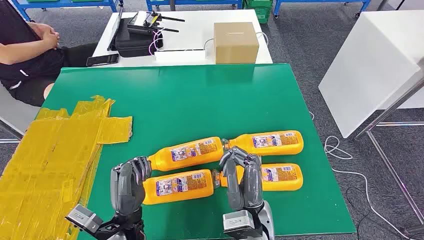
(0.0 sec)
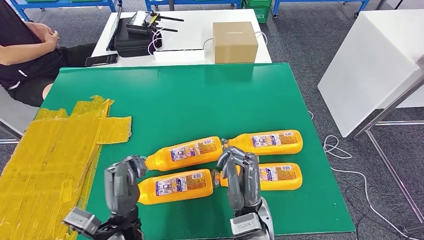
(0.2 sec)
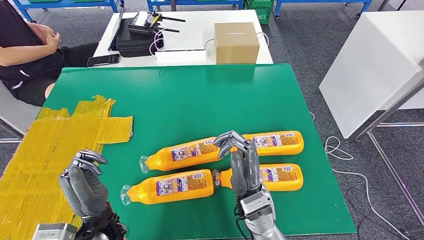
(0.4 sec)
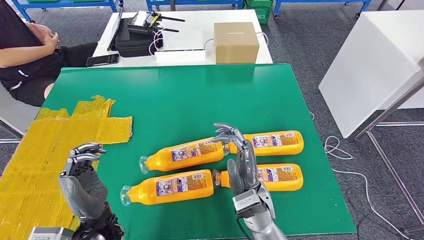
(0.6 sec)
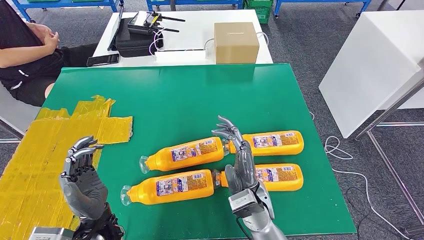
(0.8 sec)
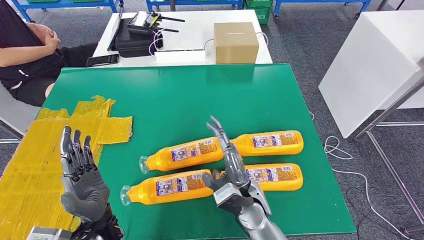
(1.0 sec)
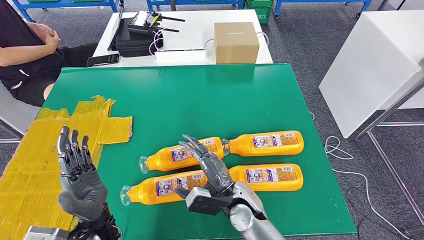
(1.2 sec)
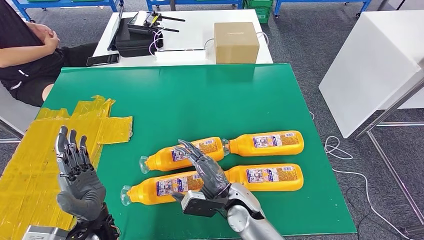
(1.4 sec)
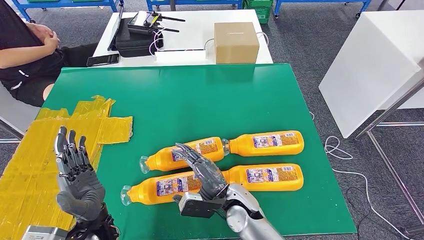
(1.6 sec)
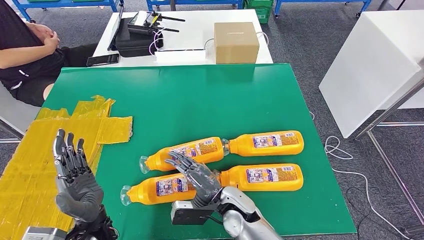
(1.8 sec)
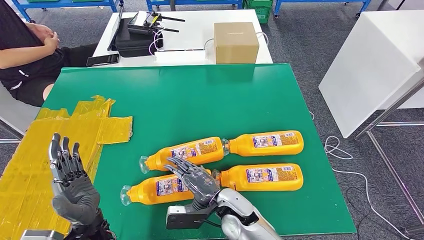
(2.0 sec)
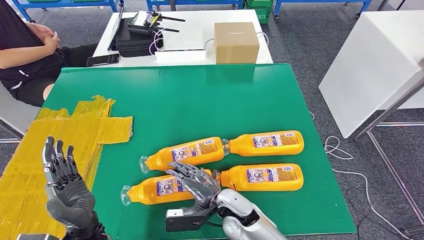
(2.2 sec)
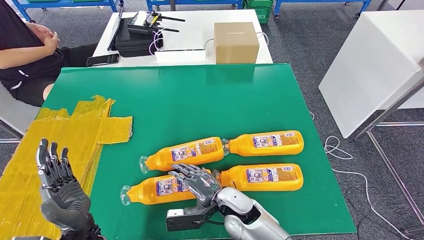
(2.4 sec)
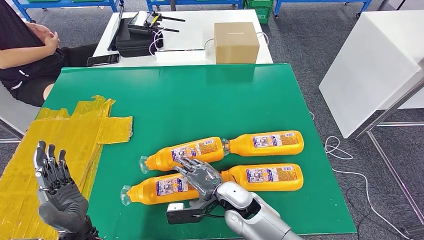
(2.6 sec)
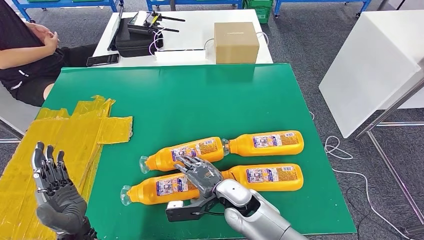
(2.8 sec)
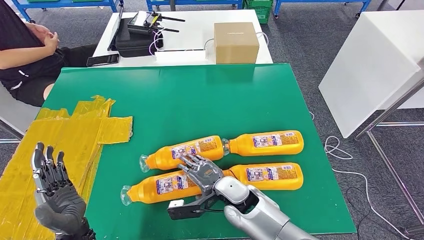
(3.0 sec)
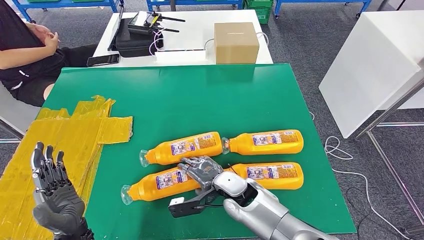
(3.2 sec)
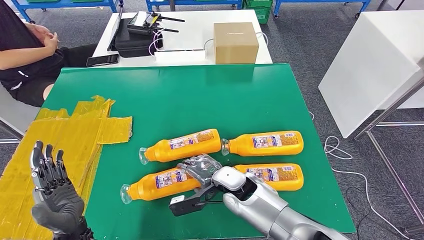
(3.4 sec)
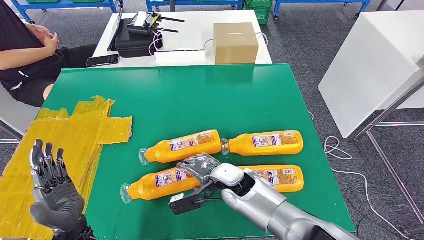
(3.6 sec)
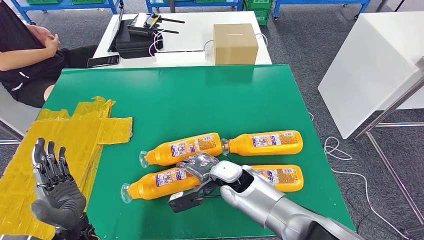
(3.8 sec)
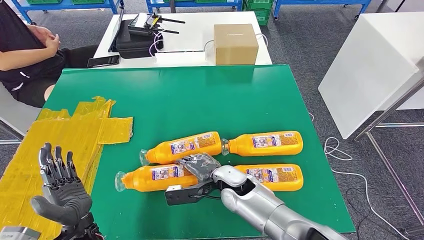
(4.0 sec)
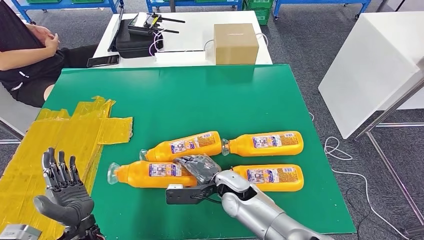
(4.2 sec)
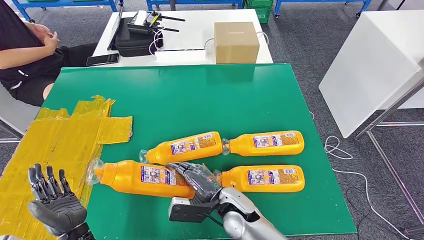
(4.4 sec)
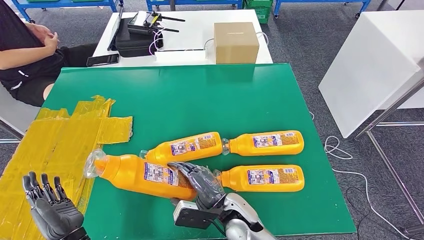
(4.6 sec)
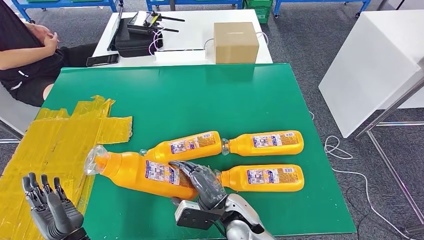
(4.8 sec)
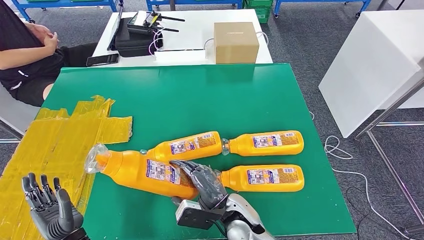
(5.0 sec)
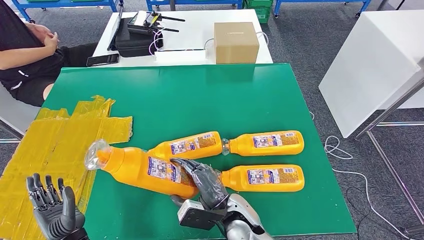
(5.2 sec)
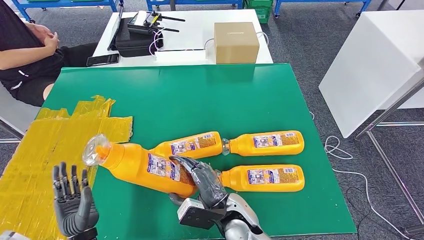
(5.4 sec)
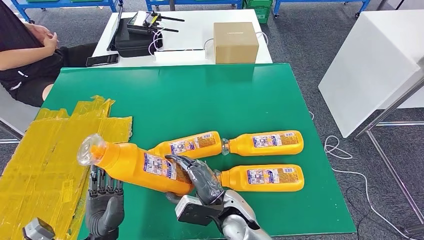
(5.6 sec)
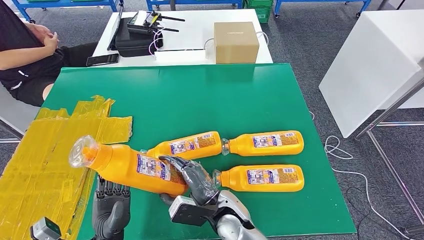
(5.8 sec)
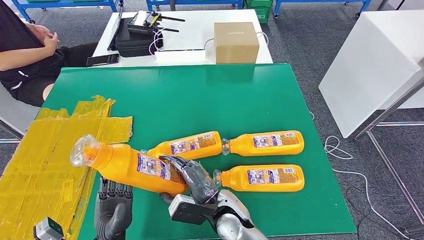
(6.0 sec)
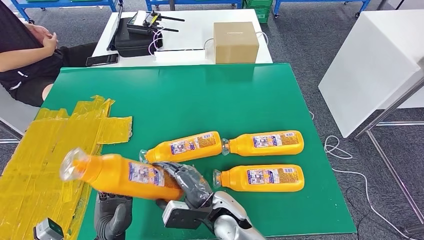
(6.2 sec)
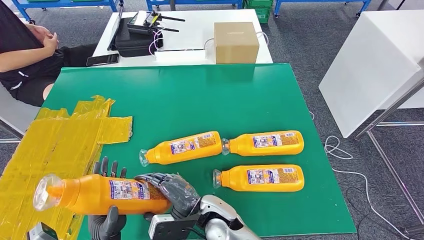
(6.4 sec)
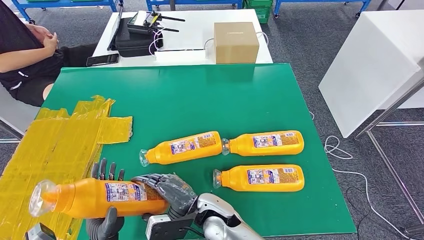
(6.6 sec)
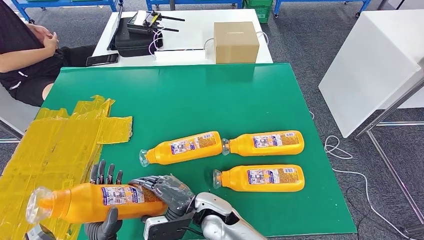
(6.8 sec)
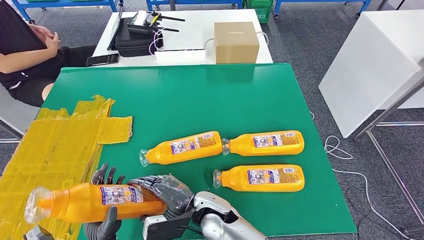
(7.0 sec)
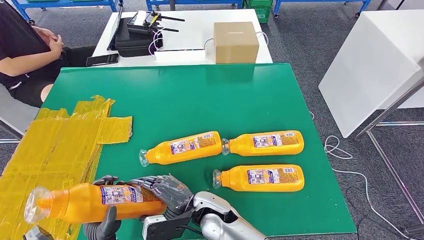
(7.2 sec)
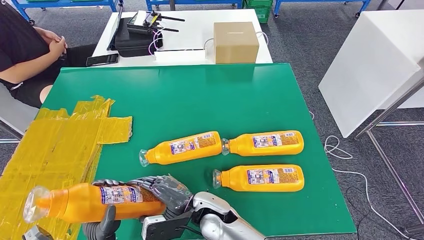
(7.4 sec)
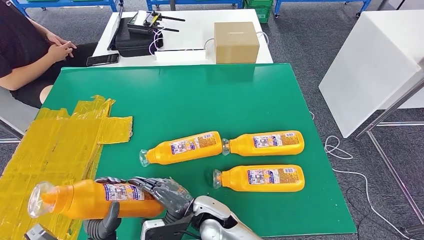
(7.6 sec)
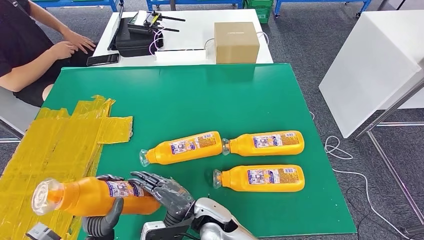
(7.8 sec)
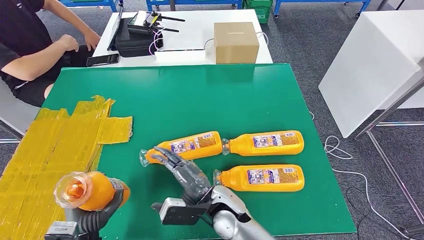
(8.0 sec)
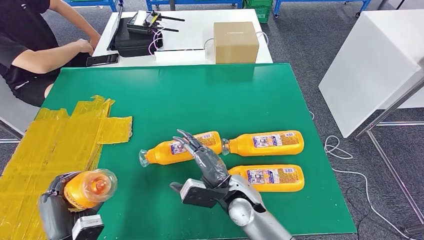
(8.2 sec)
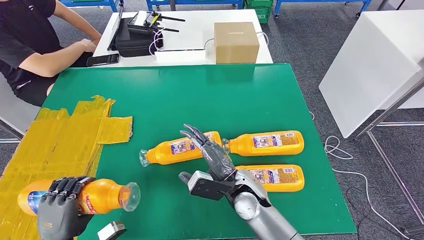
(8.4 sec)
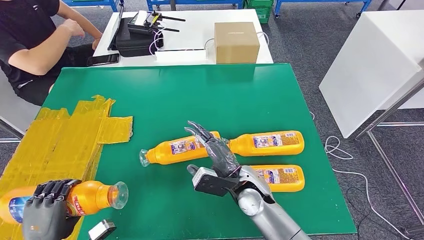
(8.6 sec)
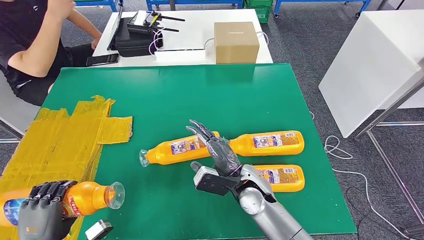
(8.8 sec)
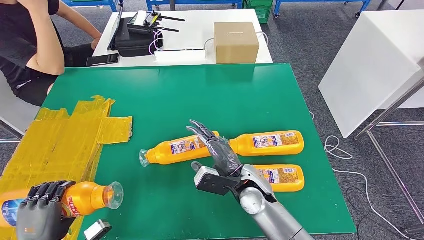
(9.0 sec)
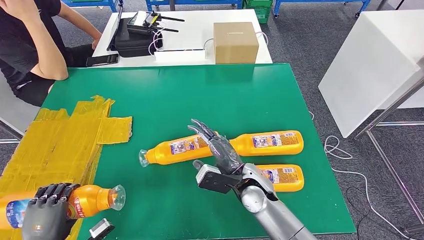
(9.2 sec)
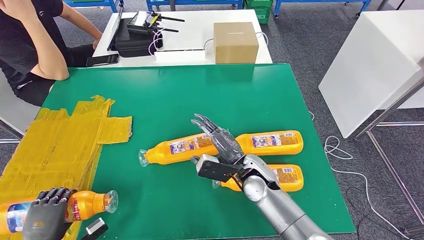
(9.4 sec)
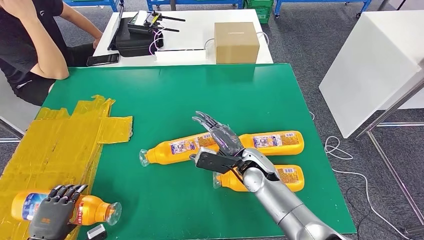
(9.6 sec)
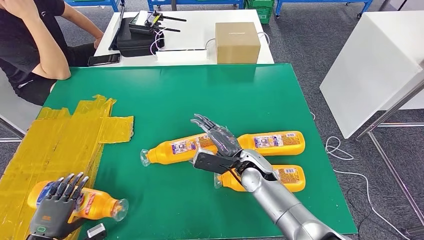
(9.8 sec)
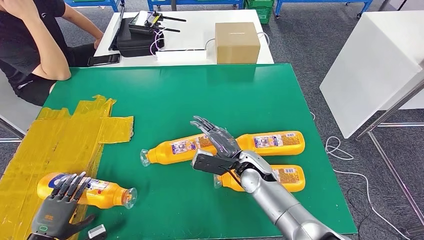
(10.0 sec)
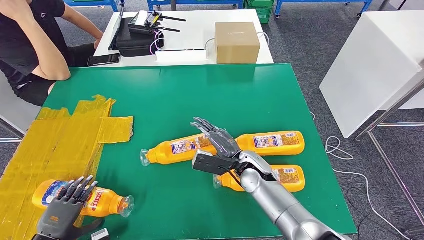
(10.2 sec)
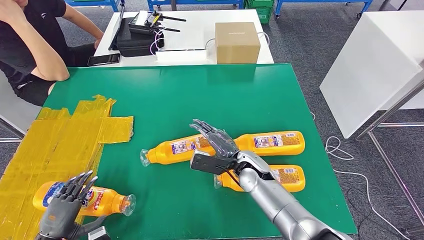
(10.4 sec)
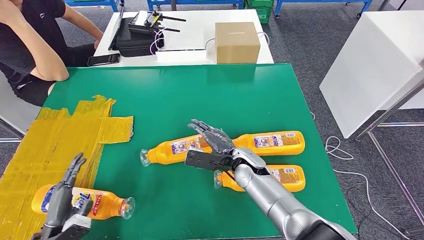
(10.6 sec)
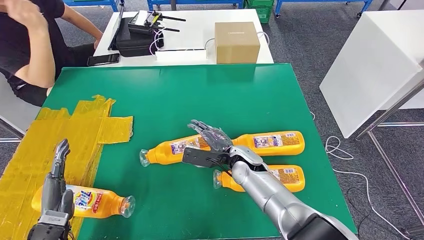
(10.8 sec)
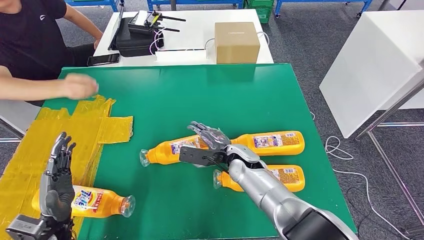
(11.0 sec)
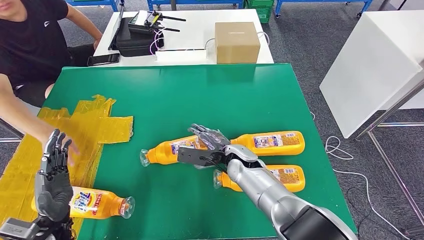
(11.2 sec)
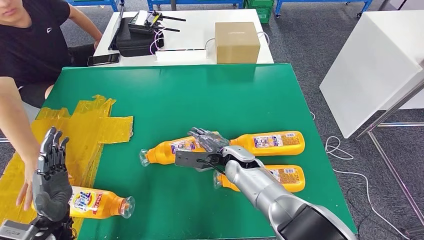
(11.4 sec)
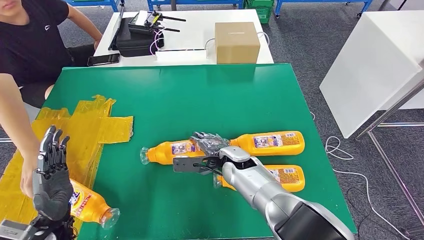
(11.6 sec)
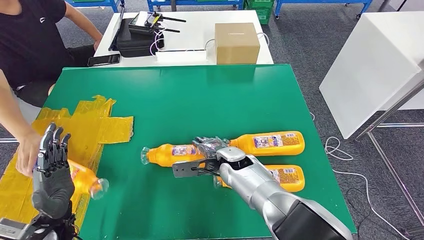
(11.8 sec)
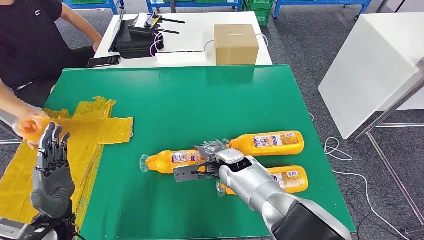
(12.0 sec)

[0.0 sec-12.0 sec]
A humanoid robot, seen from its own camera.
Step, 0.0 sec to 5.2 sec: Take the fast-moving consumer goods bottle from the table.
Step, 5.4 sec to 11.0 sec: Flip the fast-moving consumer goods bottle to the front side.
3.0 sec to 4.4 sec: The left hand moves approximately 5 cm.
4.4 sec to 6.0 sec: The left hand shifts some 5 cm to the right.
7.6 sec to 9.0 sec: The left hand is displaced to the left by approximately 15 cm. Meanwhile the right hand heads to the right and forward, covering about 10 cm.
9.0 sec to 10.4 sec: The right hand is displaced forward by about 5 cm, while the left hand shifts about 10 cm downward and to the left.

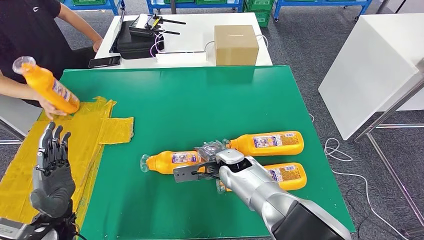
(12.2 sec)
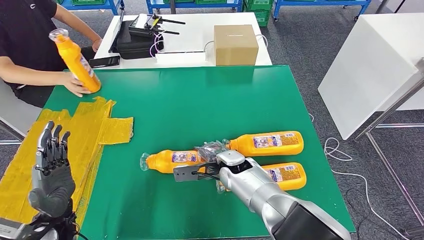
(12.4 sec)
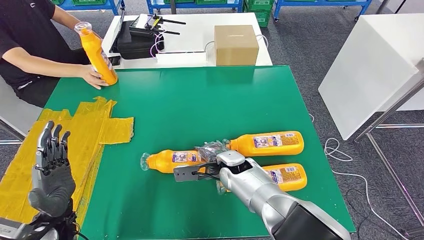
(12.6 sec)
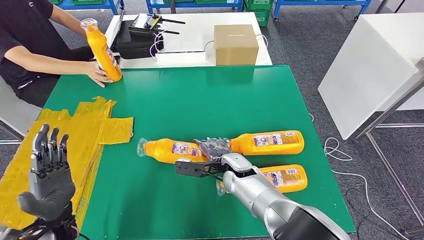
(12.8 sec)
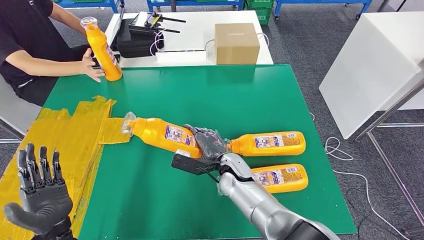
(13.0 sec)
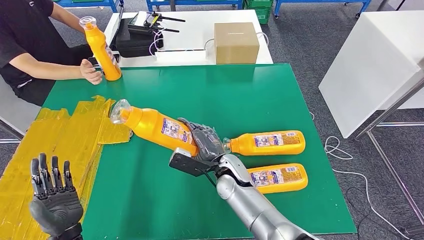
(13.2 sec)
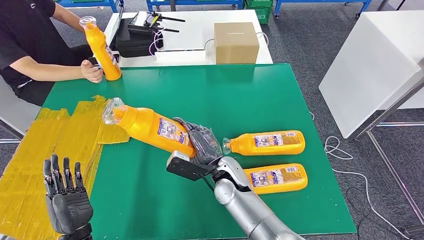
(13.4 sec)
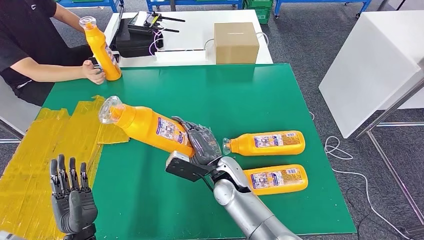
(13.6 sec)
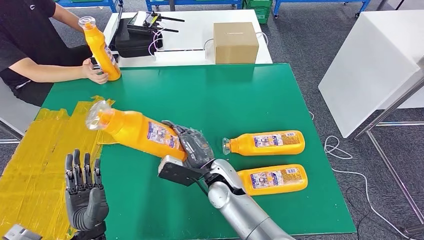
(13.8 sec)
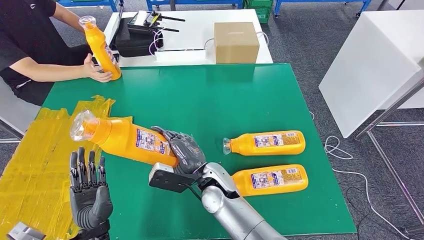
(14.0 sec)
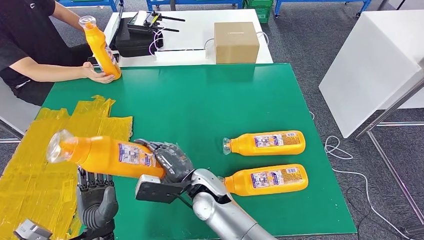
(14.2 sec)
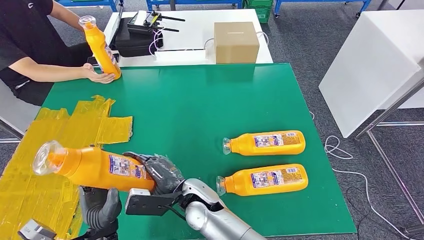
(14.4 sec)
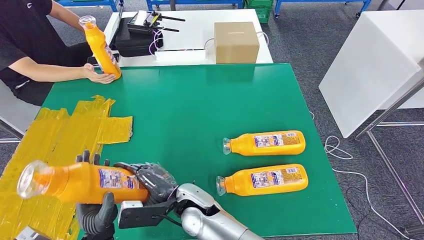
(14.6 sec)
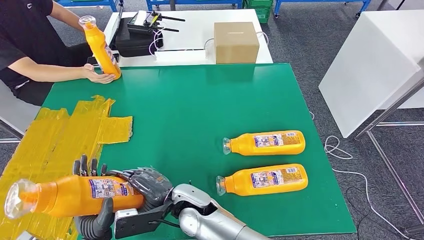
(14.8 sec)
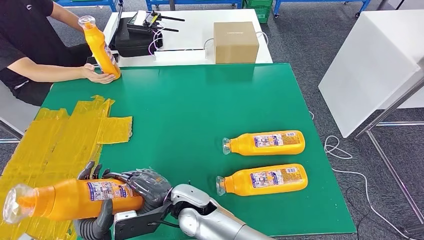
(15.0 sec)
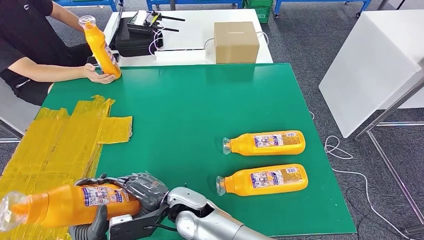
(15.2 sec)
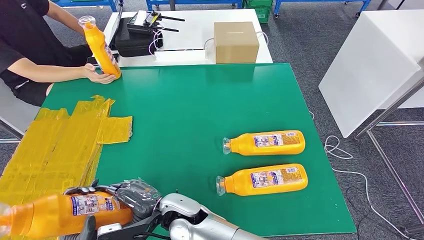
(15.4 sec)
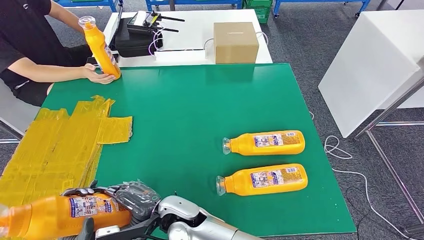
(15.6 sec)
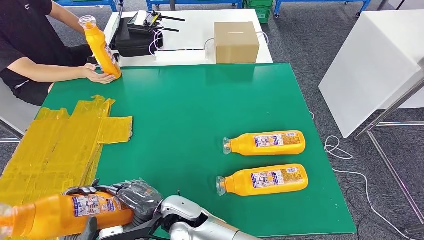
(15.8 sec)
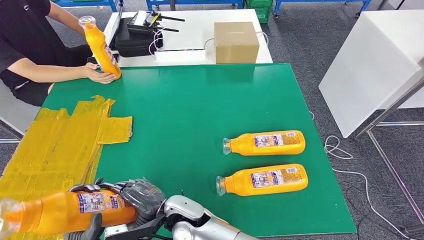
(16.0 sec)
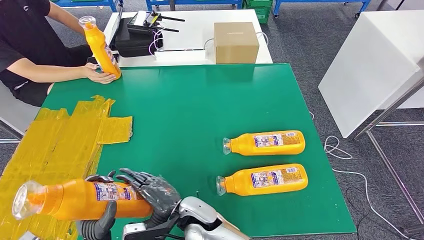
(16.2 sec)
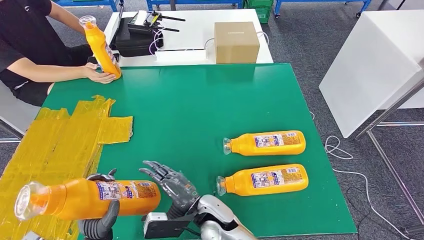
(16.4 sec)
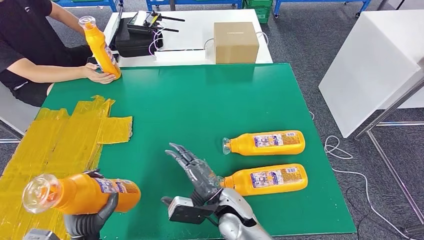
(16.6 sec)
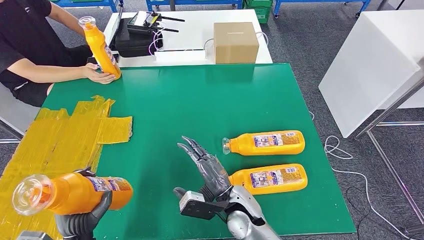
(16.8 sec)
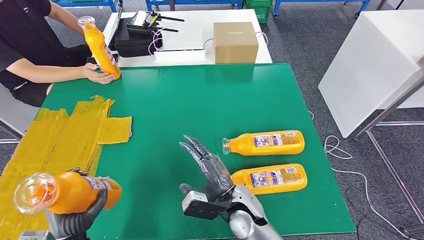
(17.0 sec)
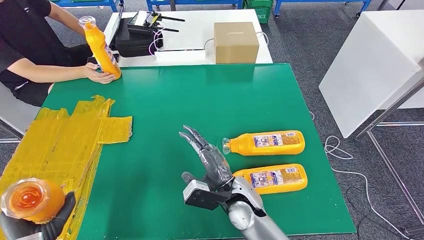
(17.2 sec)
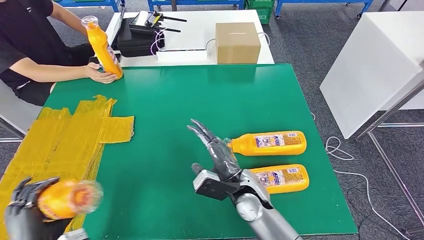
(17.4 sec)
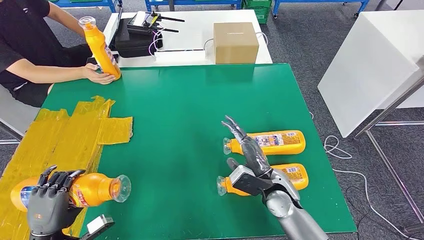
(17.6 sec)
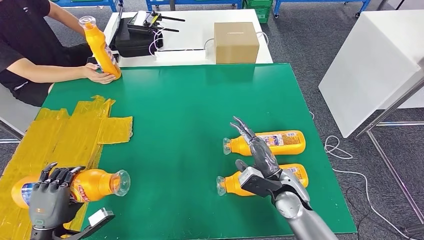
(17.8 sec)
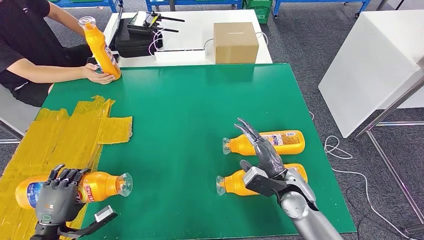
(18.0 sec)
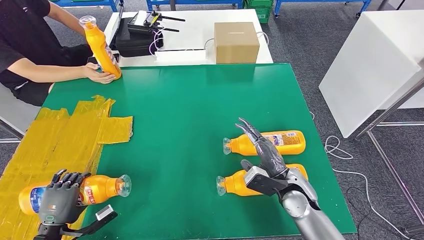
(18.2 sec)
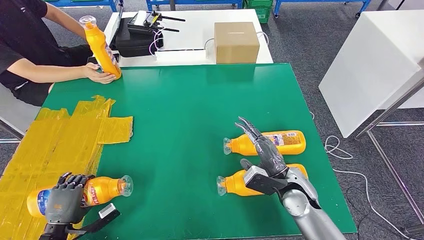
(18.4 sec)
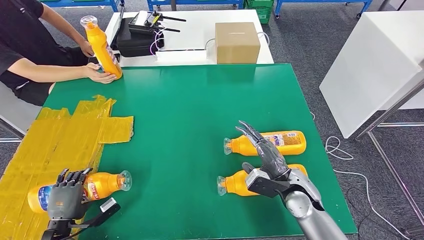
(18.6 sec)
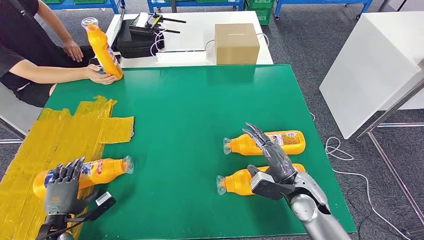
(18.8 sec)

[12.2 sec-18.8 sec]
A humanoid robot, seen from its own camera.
Step, 12.2 sec to 14.6 sec: Pick up the fast-moving consumer goods bottle from the table.
13.8 sec to 15.4 sec: The right hand travels backward and to the left by approximately 15 cm.
15.4 sec to 17.2 sec: The right hand moves to the right, about 15 cm. Meanwhile the left hand moves to the left, roughly 5 cm.
